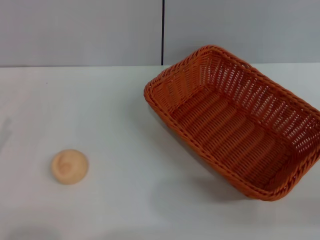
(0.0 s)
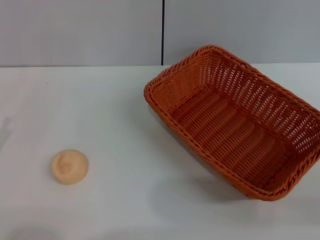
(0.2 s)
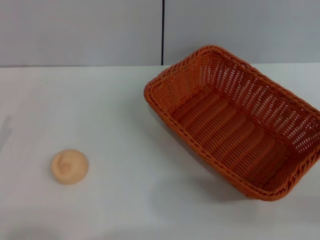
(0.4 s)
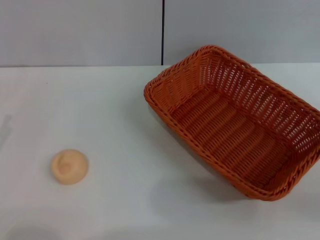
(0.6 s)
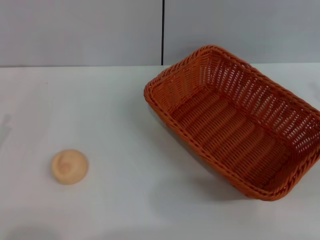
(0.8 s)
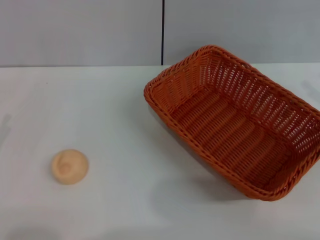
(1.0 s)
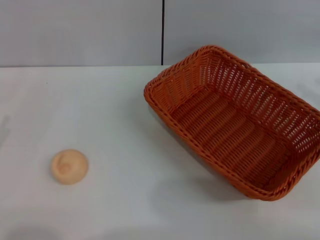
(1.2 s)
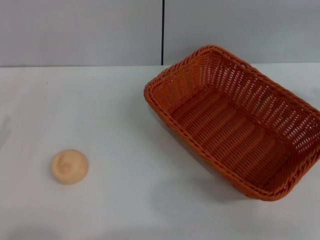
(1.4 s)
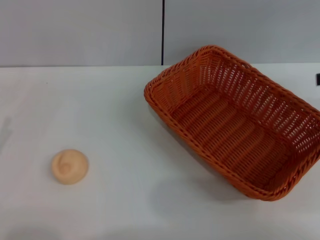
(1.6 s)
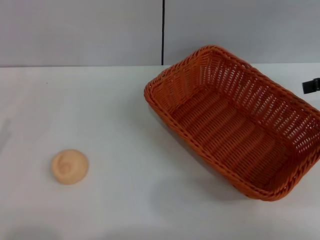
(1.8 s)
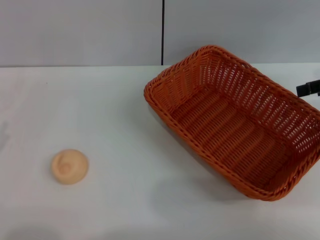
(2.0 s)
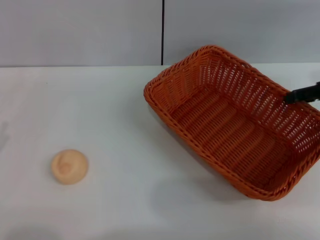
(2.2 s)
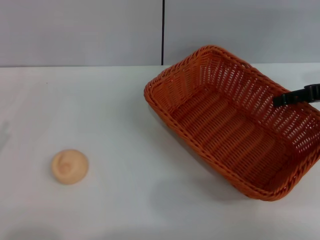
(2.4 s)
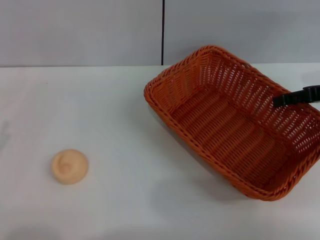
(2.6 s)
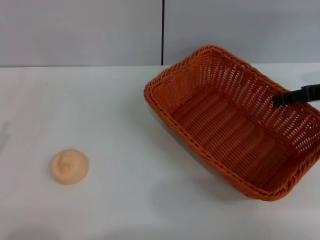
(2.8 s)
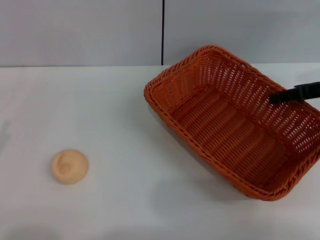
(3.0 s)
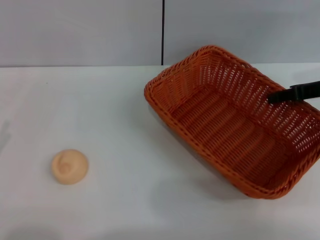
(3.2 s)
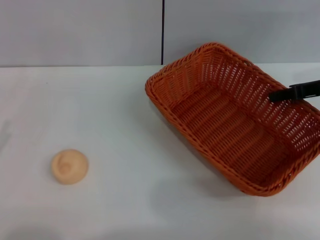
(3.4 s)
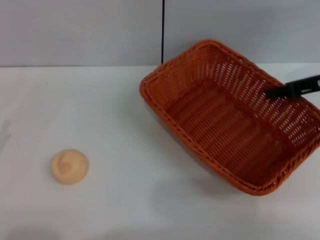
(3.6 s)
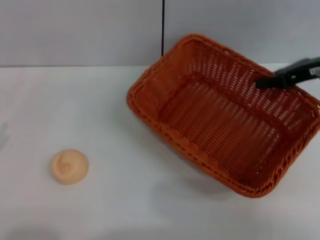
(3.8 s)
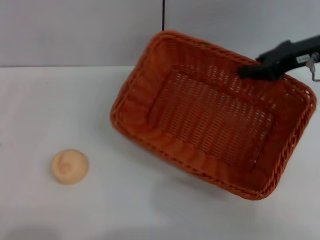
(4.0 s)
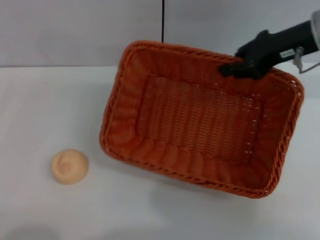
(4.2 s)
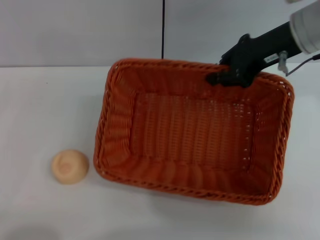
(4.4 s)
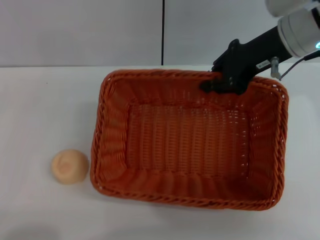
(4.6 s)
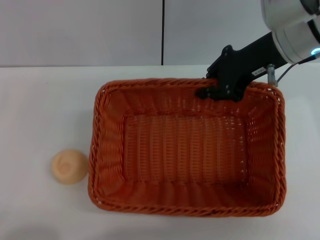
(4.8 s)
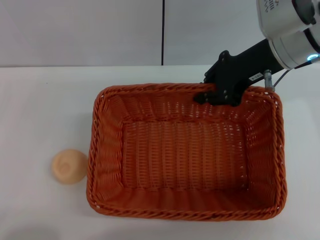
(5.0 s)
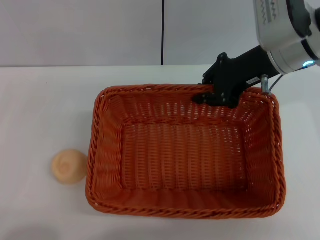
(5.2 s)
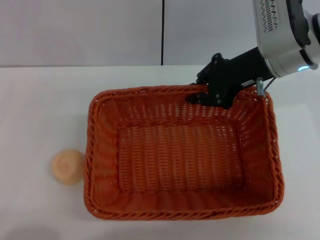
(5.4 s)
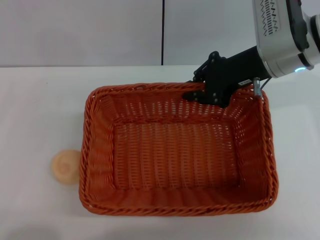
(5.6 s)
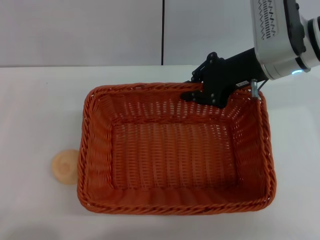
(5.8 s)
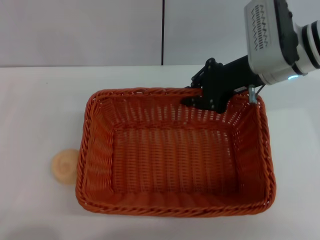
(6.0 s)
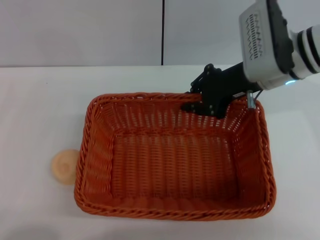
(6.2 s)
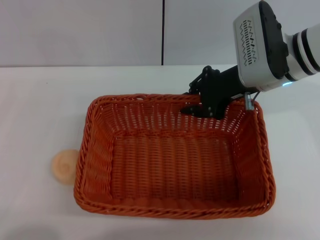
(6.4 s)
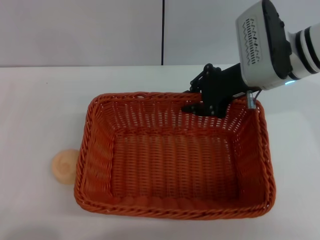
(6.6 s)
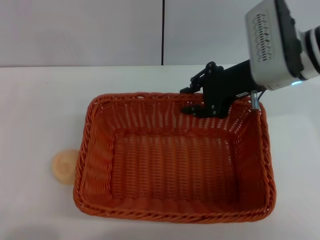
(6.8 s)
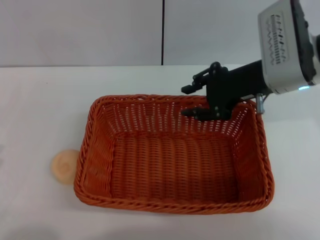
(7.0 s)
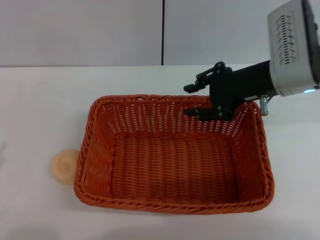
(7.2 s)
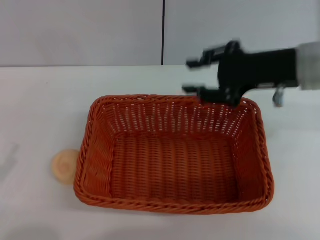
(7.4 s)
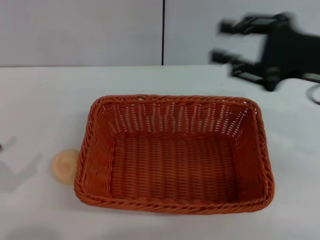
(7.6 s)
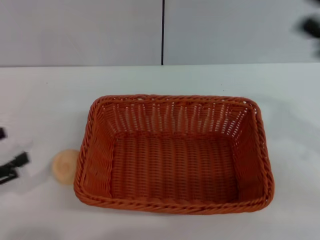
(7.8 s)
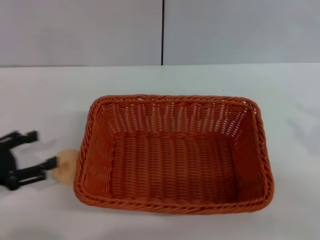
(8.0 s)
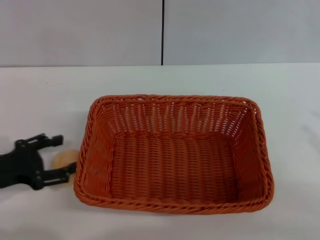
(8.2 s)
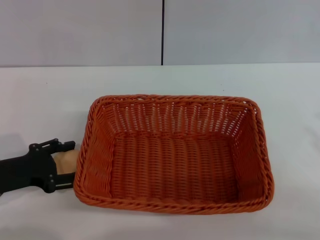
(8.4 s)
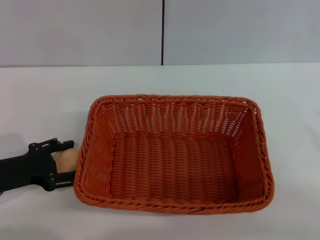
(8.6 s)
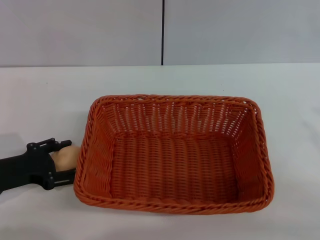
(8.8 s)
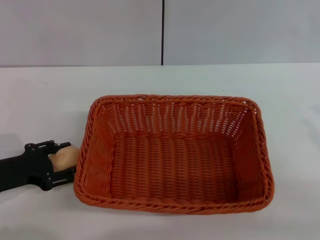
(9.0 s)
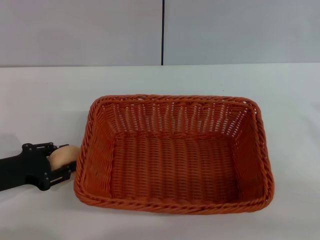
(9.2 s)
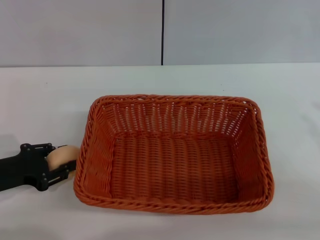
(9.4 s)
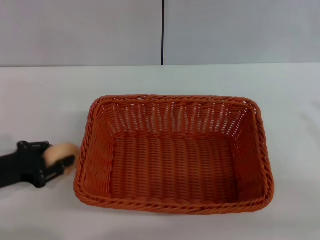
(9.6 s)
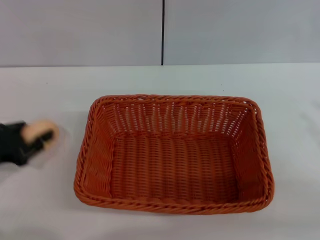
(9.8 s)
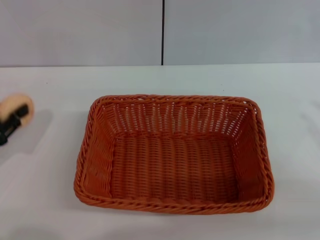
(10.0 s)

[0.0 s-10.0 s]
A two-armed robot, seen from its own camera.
Step, 0.0 to 7.4 s: Move the basket to the center of view with the right gripper.
Step, 7.6 to 10.0 s: Pick up the egg yolk pastry with the left gripper.
1.4 to 2.8 s: The right gripper is displaced to the left and downward by approximately 10 cm.
2.8 to 4.2 s: The right gripper goes approximately 10 cm to the left and upward, and closes up.
4.2 to 5.8 s: The right gripper is displaced to the left by roughly 5 cm.
5.8 to 7.2 s: The right gripper opens up.
7.2 to 8.6 s: The left gripper goes approximately 15 cm forward and to the right. The right gripper moves backward and to the right, some 25 cm.
8.6 to 10.0 s: The left gripper is displaced to the left by some 5 cm, and closes up.

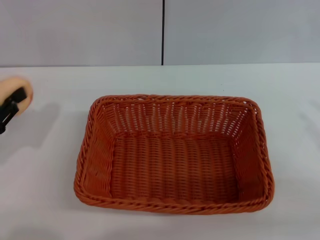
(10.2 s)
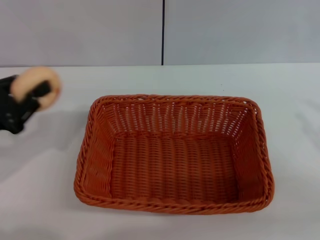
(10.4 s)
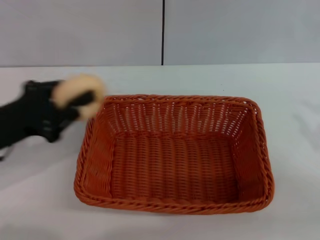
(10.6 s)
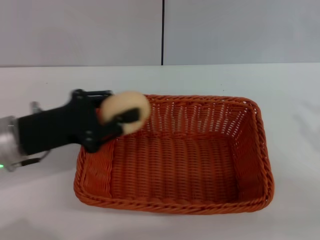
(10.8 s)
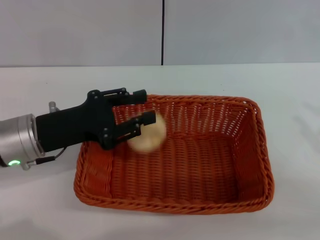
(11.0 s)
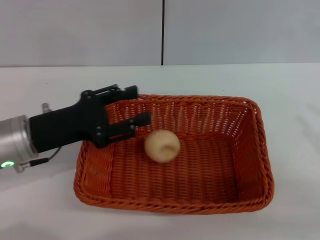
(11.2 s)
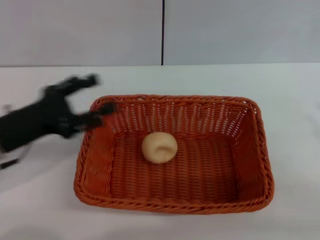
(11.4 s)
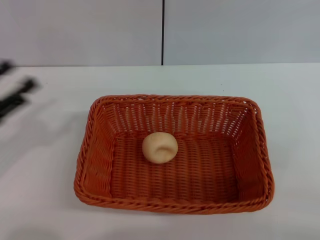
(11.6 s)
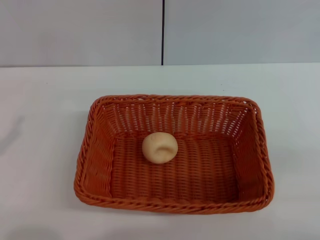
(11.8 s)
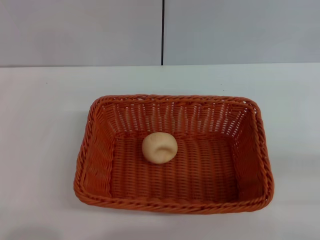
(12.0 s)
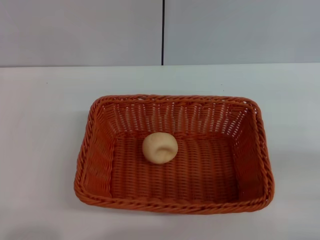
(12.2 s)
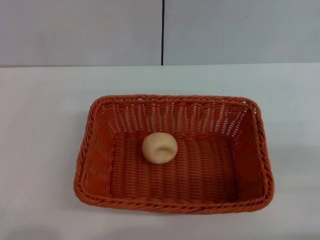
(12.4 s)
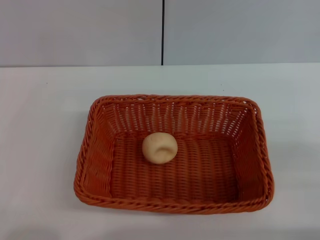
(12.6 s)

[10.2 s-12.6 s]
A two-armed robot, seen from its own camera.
Step, 10.2 to 11.4 s: Place the egg yolk pastry into the basket with the left gripper.
10.2 to 11.4 s: The left gripper travels to the right by roughly 10 cm, and opens its fingers.
11.4 to 12.6 s: The left gripper goes some 15 cm backward and to the left. Meanwhile the right gripper heads downward, covering approximately 5 cm.

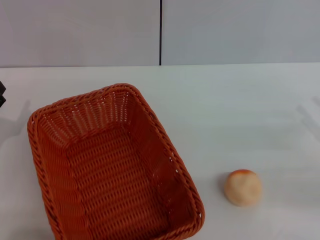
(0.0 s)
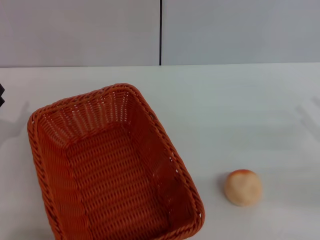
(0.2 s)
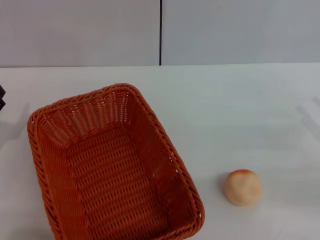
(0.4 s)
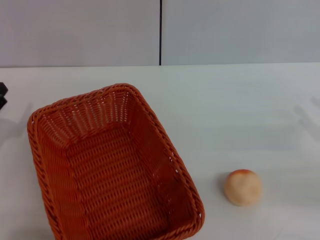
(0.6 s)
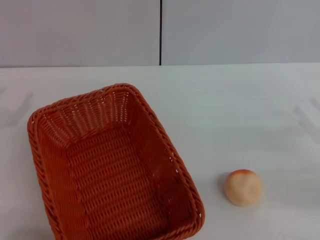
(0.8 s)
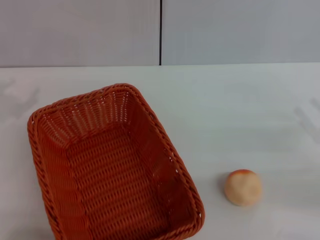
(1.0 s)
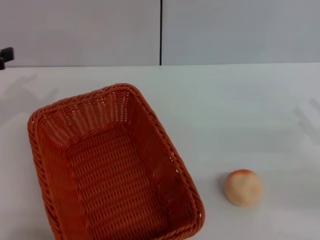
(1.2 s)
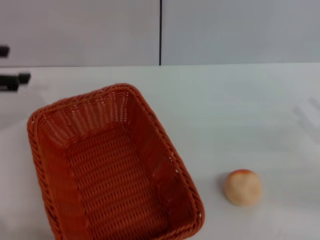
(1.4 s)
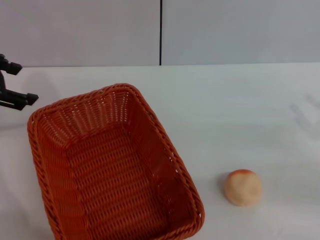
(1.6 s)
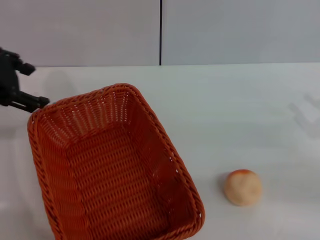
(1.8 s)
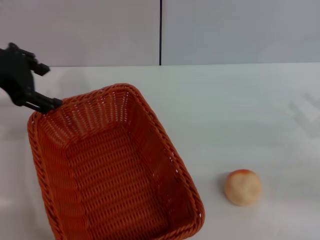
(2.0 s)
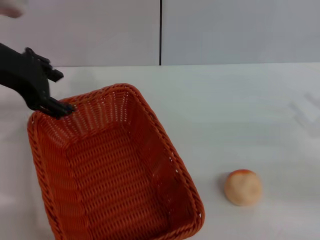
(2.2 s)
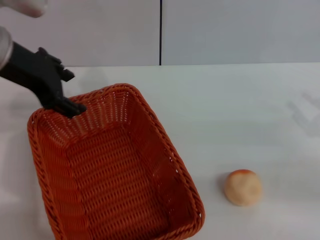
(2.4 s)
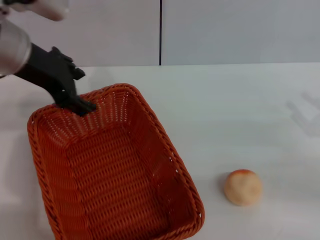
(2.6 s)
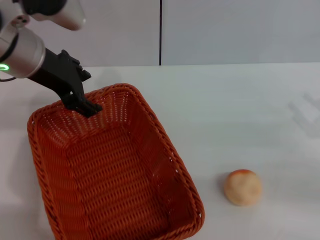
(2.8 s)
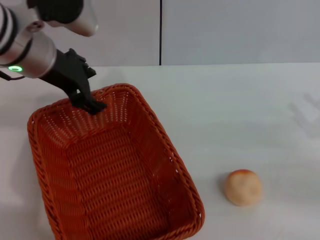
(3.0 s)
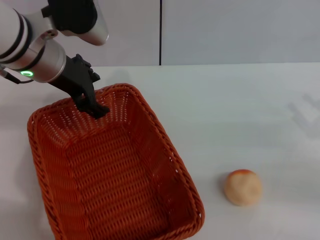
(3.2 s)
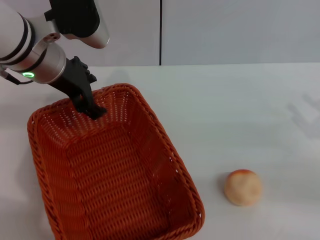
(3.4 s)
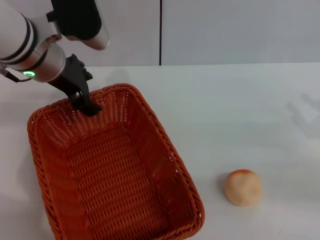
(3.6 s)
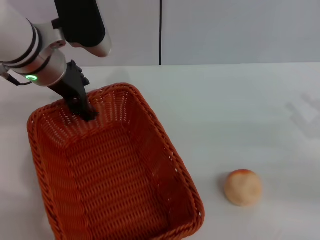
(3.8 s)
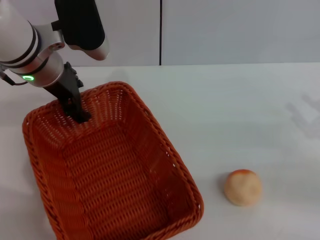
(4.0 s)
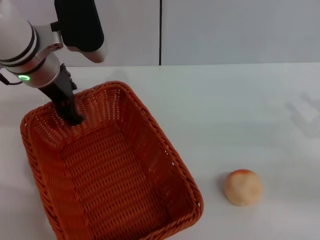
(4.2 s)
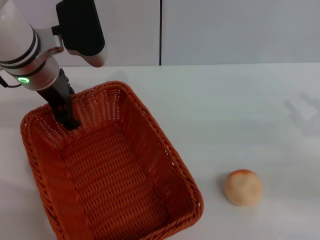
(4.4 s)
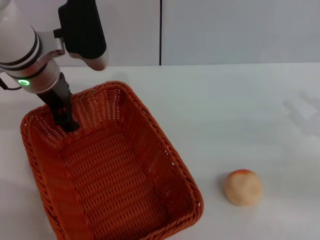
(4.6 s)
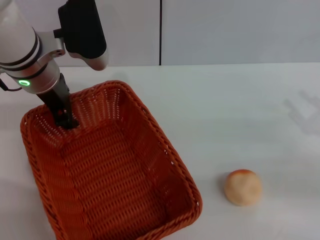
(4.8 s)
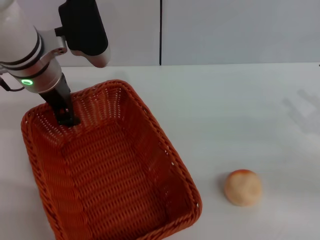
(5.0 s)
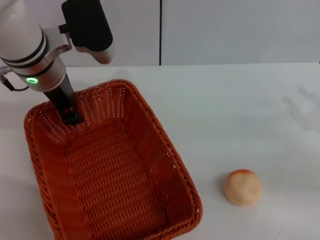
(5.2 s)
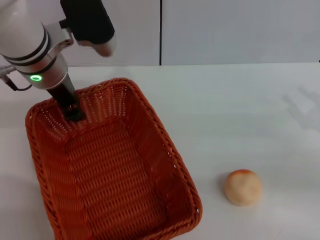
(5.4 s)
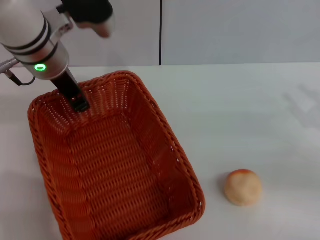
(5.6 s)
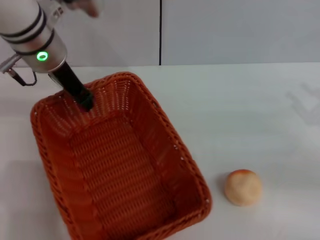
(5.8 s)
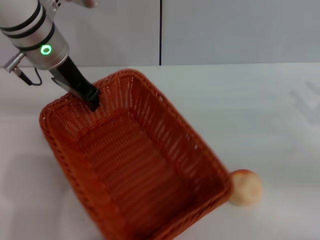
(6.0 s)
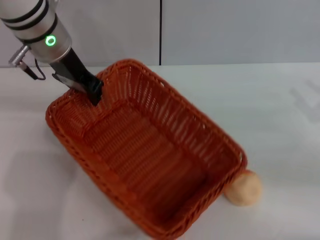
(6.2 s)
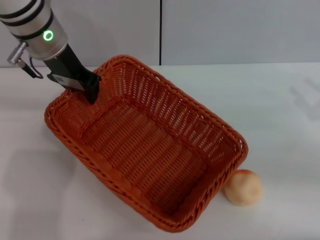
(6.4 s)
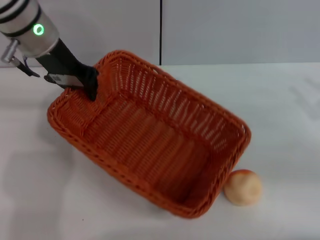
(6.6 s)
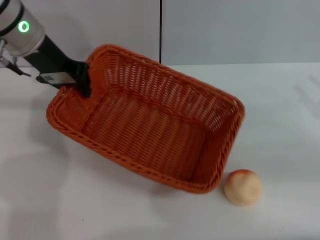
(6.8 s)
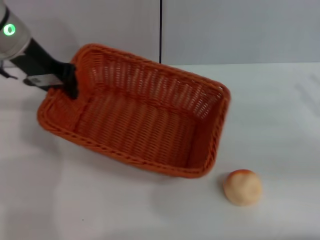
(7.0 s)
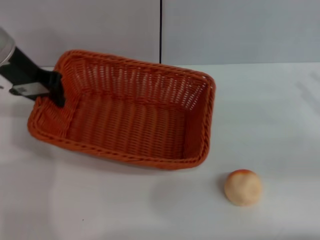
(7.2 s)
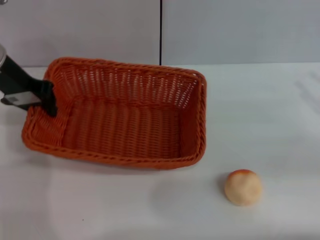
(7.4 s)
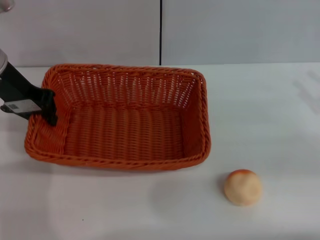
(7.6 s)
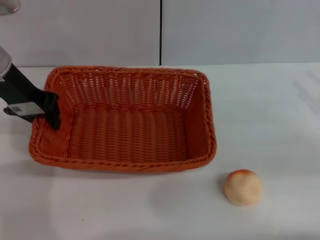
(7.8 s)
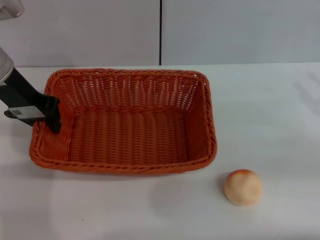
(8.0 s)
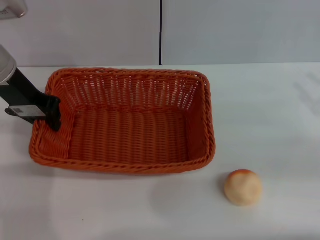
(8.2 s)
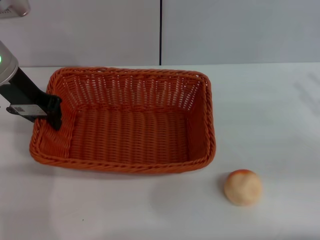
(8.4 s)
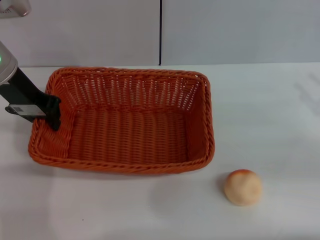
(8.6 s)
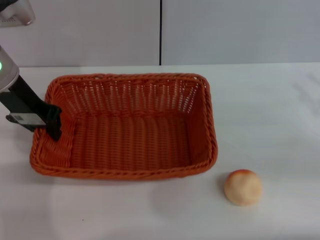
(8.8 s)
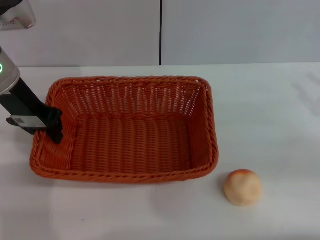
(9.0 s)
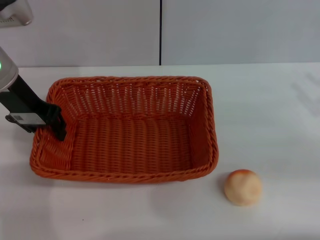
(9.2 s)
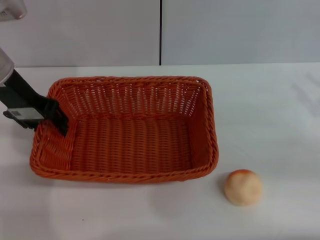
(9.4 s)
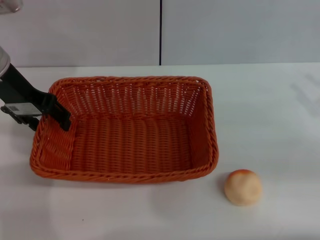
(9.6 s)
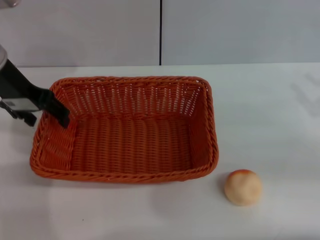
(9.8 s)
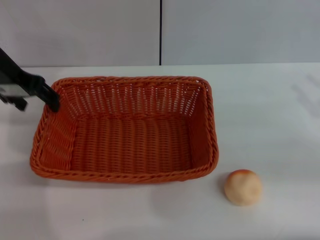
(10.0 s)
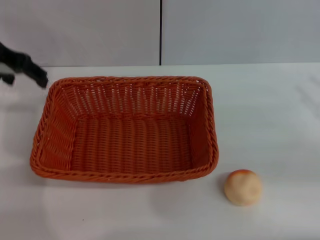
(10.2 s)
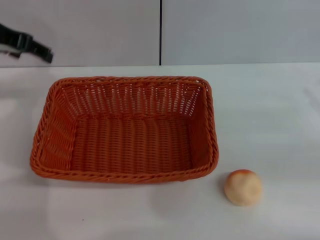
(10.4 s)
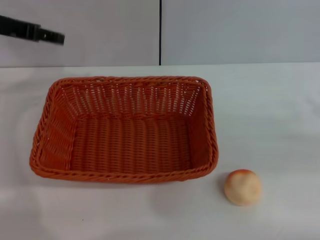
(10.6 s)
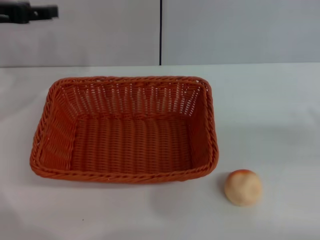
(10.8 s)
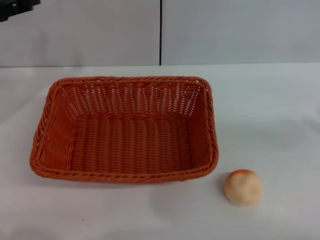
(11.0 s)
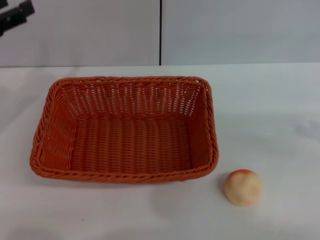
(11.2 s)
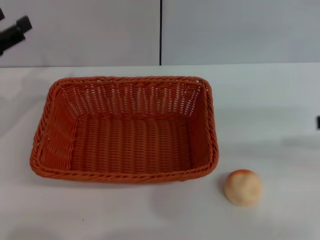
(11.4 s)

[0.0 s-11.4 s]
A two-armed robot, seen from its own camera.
Step, 0.0 to 10.2 s: Move the basket to the center of view with the left gripper.
0.0 to 1.4 s: The left gripper shifts approximately 20 cm upward.
1.4 to 2.8 s: The left gripper travels to the right by about 15 cm.
2.8 to 4.2 s: The left gripper shifts by approximately 5 cm.
4.2 to 5.6 s: The left gripper closes up.
5.6 to 7.2 s: The left gripper moves to the left, approximately 10 cm.
7.2 to 8.6 s: The grippers make only small movements.
8.6 to 10.0 s: The left gripper opens its fingers.
10.0 to 11.4 s: The left gripper moves backward, to the left and downward, some 15 cm.
